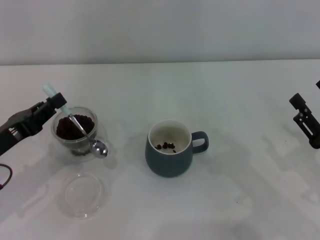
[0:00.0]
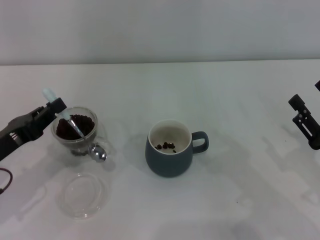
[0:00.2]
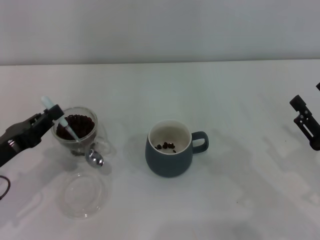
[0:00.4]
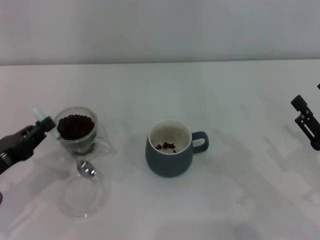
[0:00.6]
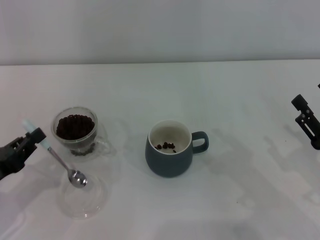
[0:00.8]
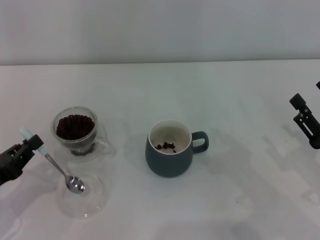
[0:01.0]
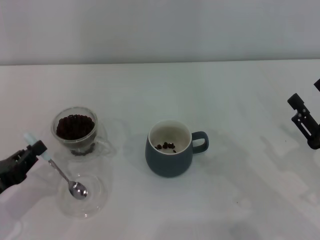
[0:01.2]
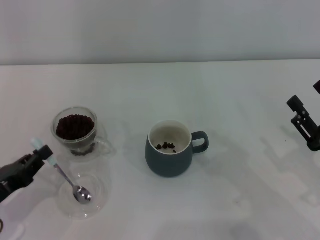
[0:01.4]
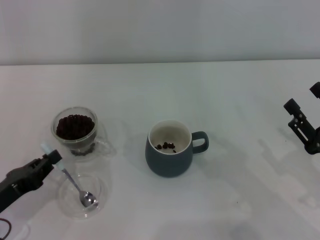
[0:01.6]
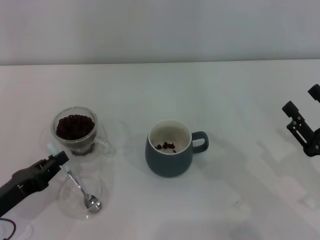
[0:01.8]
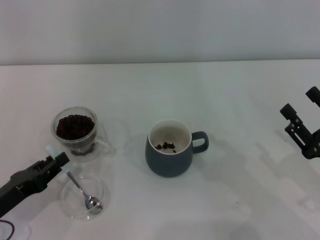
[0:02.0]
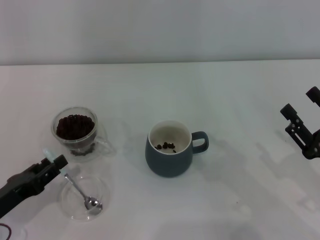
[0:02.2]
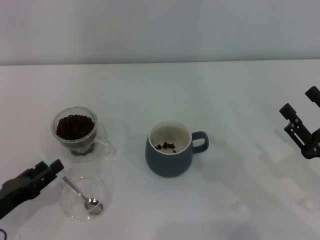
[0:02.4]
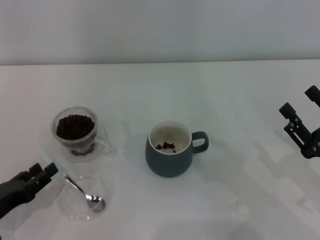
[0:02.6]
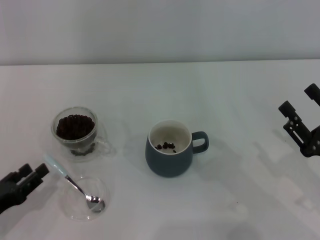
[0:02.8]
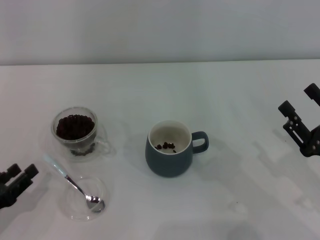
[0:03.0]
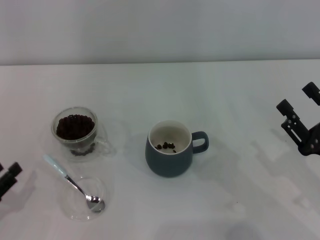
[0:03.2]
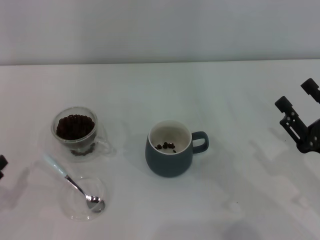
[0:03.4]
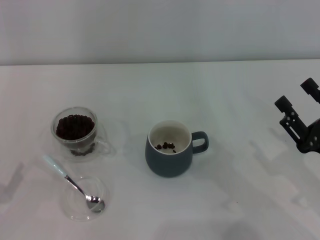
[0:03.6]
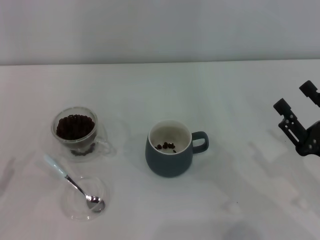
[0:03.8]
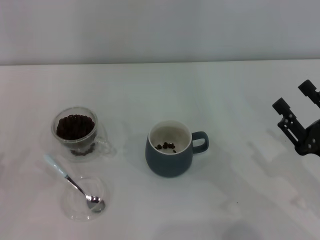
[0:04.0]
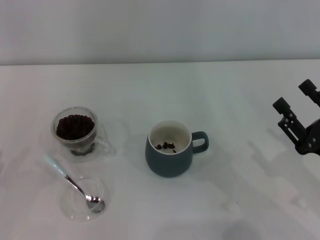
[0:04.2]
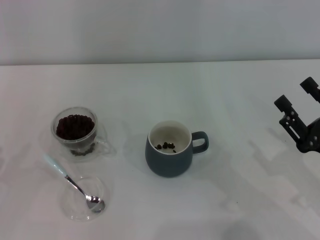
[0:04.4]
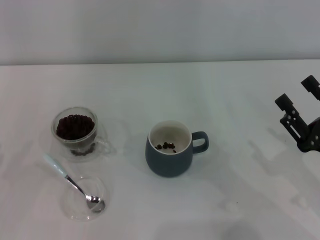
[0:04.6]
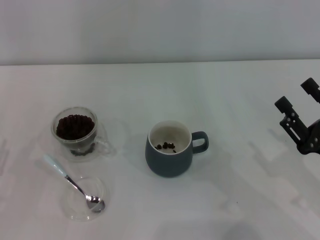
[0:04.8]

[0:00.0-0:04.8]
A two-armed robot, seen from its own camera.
Task of the whole recording: Use a blue spoon to take out the coffee beans from the glass and pour them into the gray cup.
0:00.0 to 0:01.6: The left gripper heads downward and backward, covering about 10 cm.
0:01.6 to 0:03.2: The left gripper moves about 5 cm, and opens.

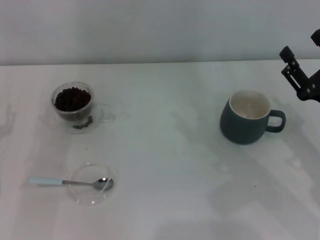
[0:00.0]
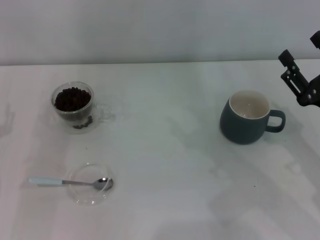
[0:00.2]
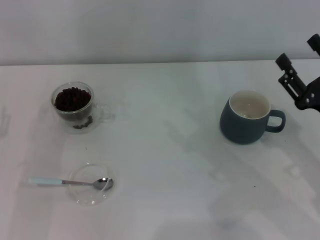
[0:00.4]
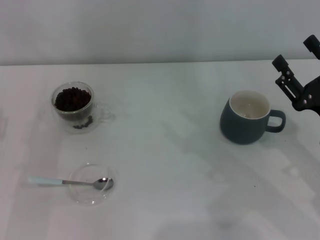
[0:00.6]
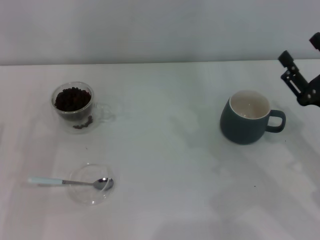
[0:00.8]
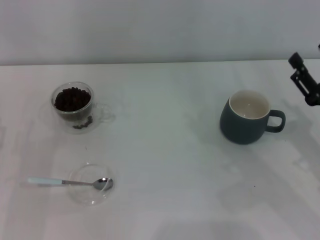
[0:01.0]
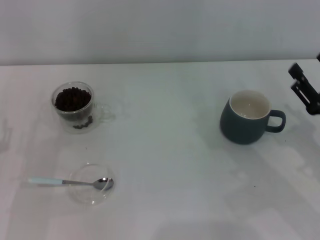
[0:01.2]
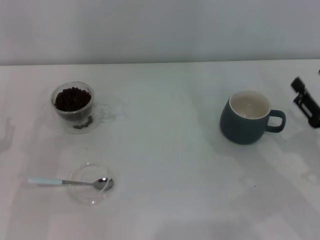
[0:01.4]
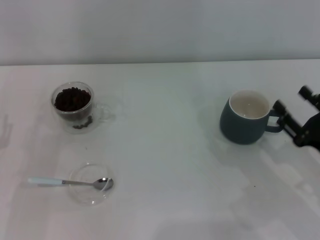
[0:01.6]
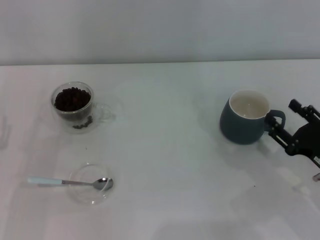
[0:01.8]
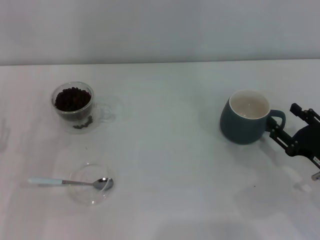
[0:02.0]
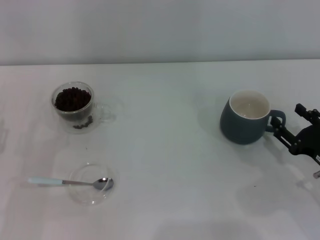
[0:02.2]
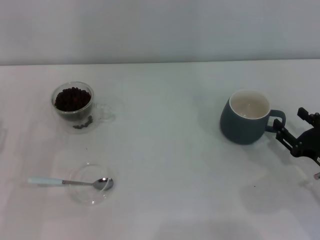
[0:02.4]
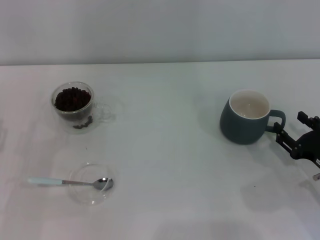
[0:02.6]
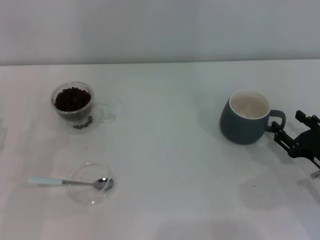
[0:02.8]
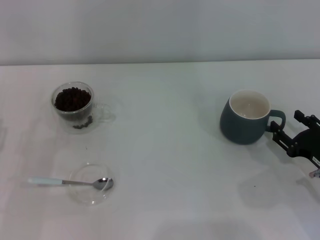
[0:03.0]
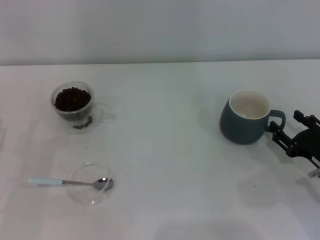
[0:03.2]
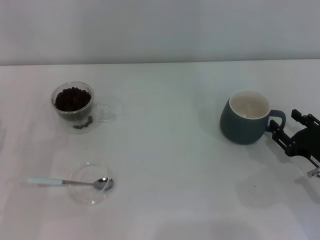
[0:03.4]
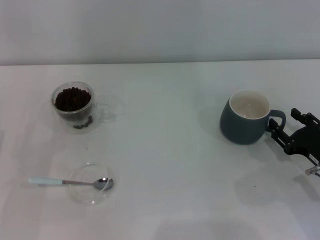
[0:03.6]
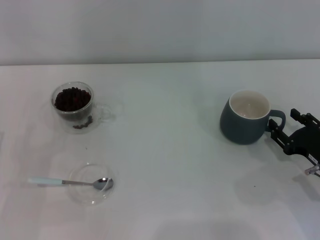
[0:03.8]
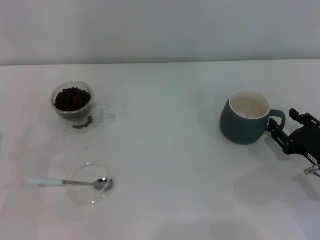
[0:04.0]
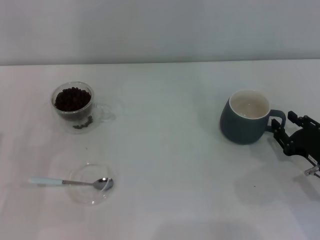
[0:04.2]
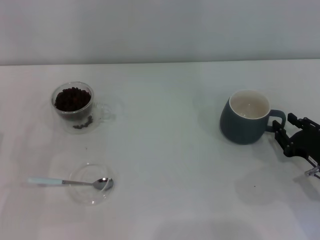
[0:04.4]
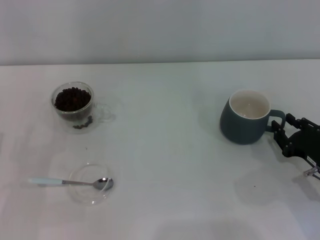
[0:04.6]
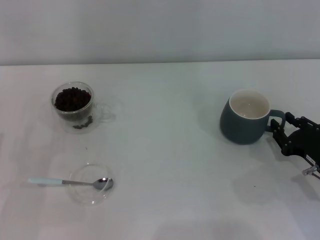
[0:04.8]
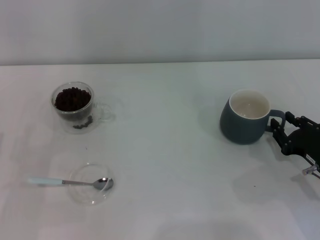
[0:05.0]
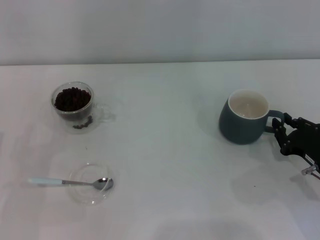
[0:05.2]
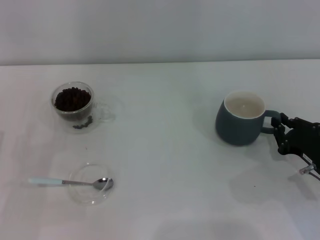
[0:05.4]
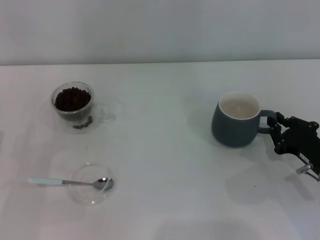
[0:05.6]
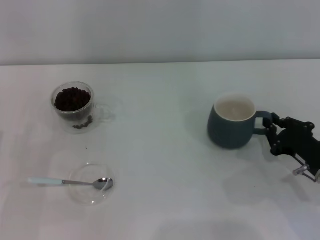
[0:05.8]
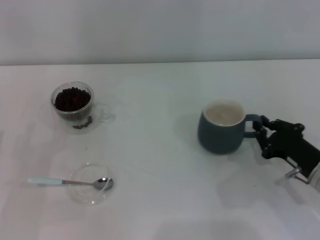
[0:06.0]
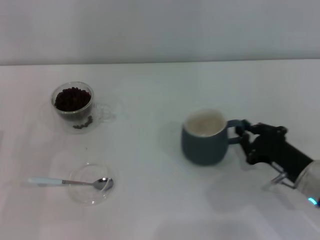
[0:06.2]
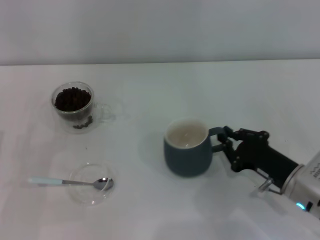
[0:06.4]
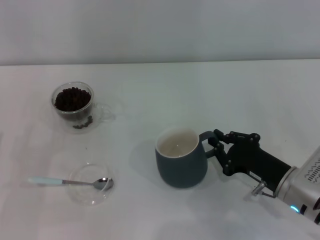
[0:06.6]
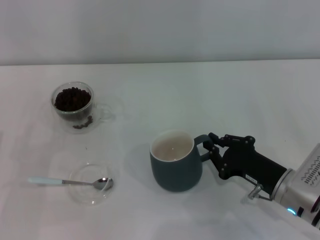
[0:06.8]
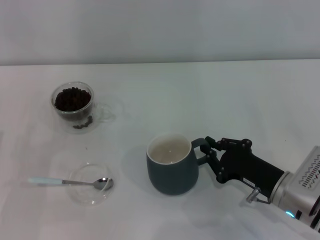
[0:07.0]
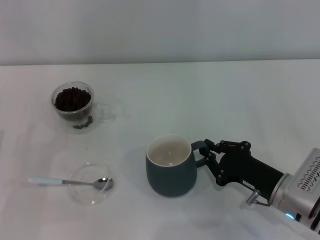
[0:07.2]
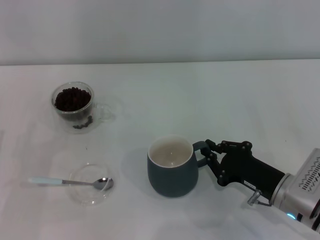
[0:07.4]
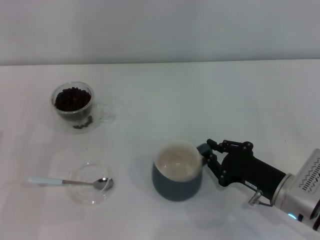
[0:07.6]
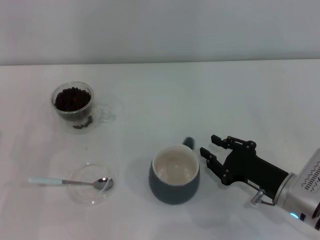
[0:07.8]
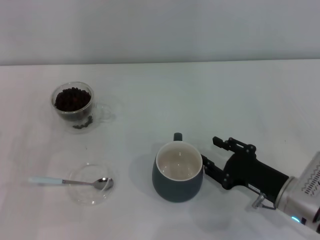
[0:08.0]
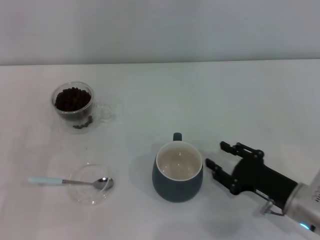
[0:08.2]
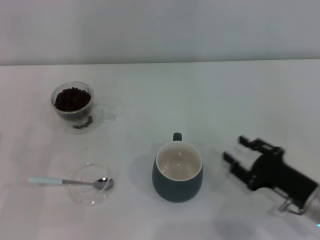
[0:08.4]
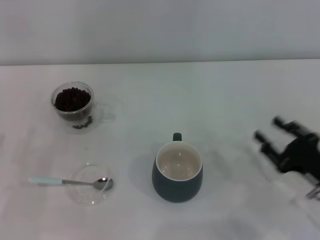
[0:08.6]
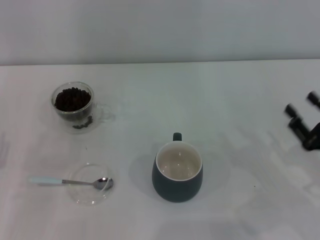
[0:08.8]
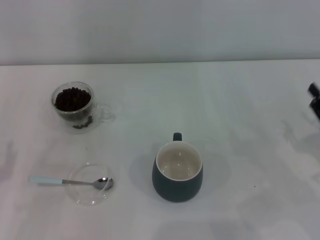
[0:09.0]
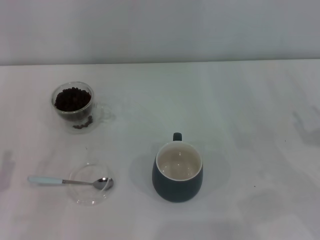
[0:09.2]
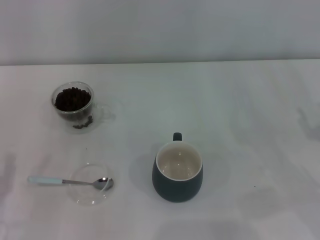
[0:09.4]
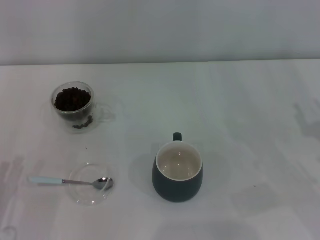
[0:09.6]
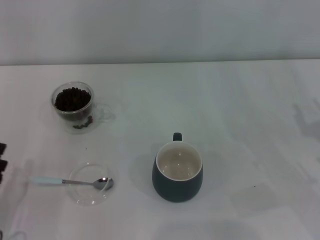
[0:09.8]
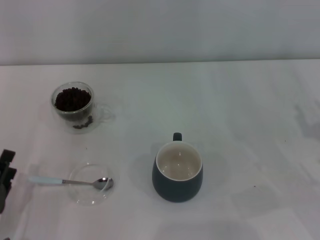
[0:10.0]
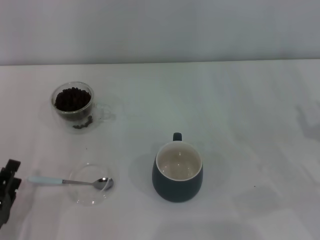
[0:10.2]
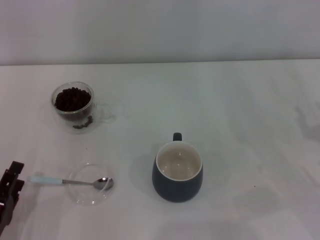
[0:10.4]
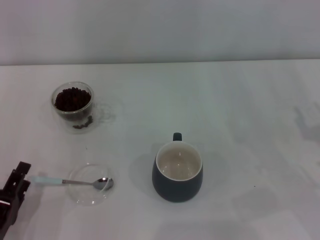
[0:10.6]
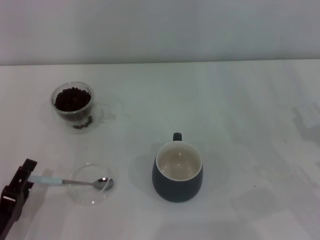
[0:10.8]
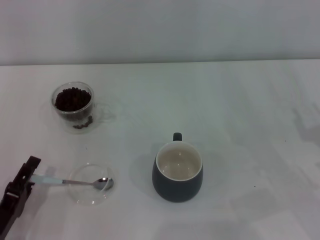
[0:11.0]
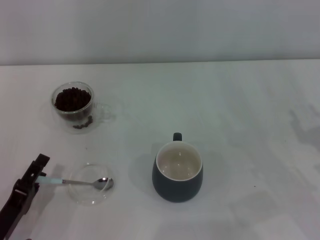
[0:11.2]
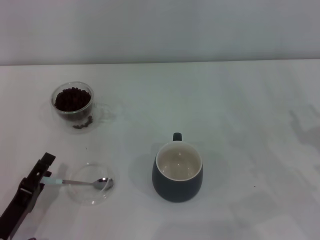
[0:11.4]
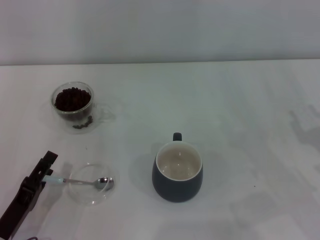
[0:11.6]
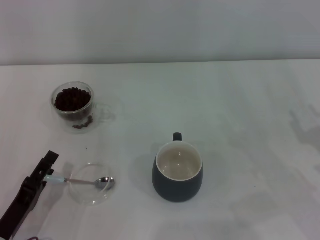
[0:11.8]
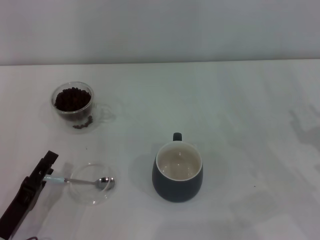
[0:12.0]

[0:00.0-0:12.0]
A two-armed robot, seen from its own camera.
Task of the whole recording: Use a blue spoon to take out the coffee beans from the glass and pour them into the gray cup.
Step, 0:00.0 to 0:08.4: Move the cup to the center of view with the left gripper.
0:00.0 to 0:01.6: The right gripper ends up approximately 5 cm from where it was.
0:01.6 to 0:03.0: The grippers move only a little.
0:03.0 to 0:04.4: Both grippers stay about where they are.
0:04.4 to 0:06.0: The right gripper closes up.
0:06.0 to 0:07.6: The right gripper moves to the left, about 5 cm.
0:07.6 to 0:09.0: The left gripper goes some 5 cm backward. The right gripper goes some 10 cm to the right, and opens its fingers.
0:09.0 to 0:10.4: The left gripper goes some 5 cm downward.
0:10.4 to 0:12.0: There are only small adjustments of the grippers.

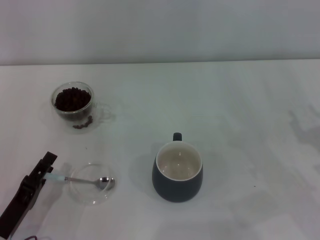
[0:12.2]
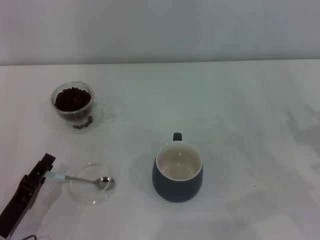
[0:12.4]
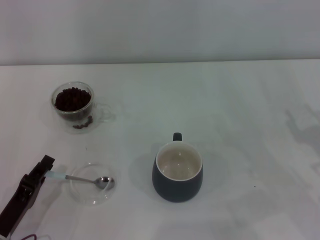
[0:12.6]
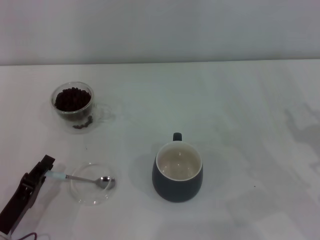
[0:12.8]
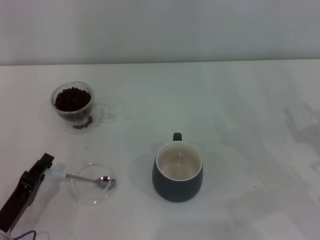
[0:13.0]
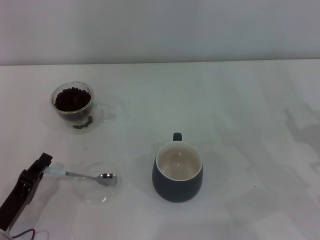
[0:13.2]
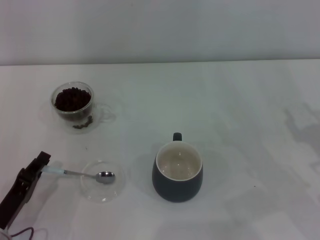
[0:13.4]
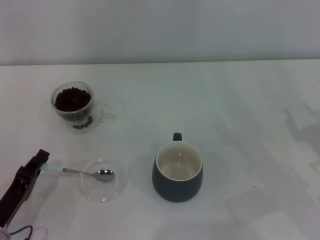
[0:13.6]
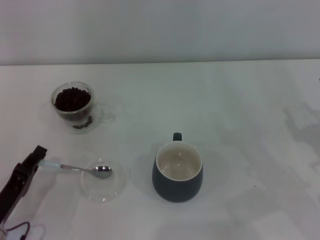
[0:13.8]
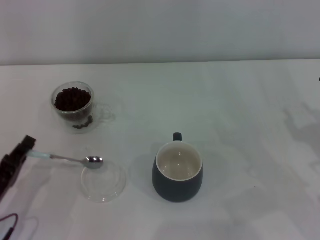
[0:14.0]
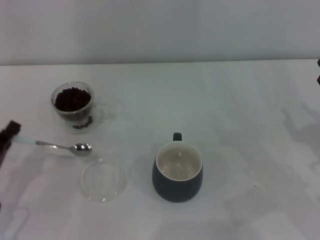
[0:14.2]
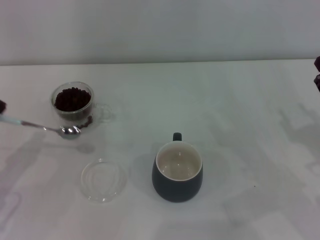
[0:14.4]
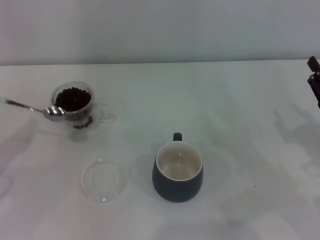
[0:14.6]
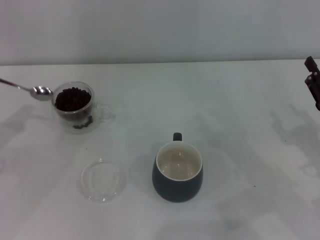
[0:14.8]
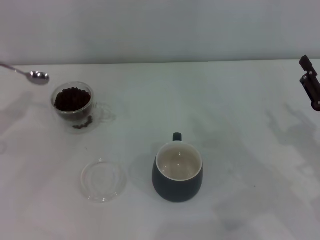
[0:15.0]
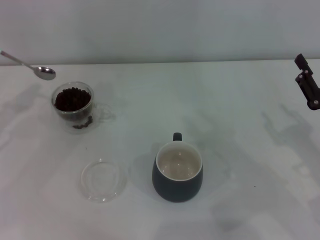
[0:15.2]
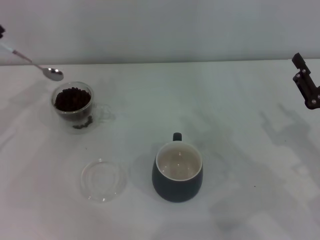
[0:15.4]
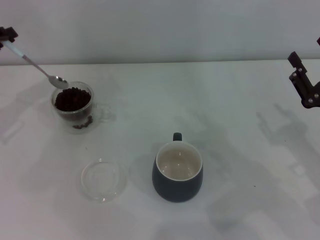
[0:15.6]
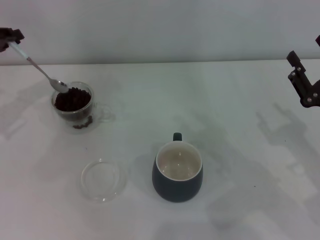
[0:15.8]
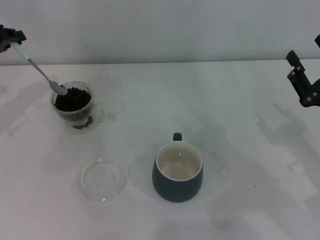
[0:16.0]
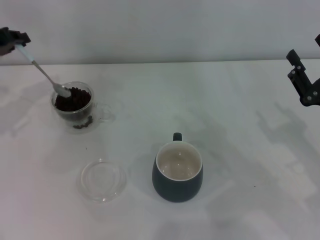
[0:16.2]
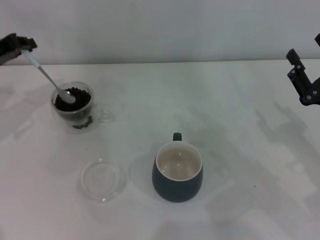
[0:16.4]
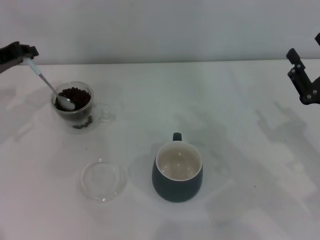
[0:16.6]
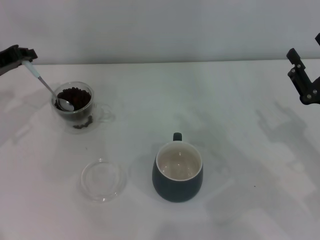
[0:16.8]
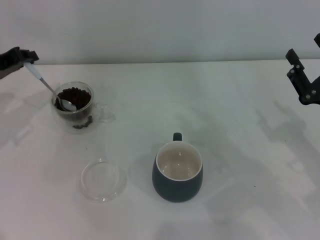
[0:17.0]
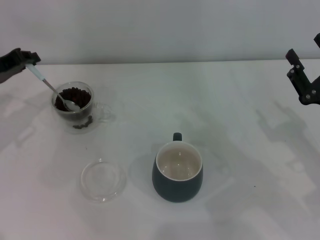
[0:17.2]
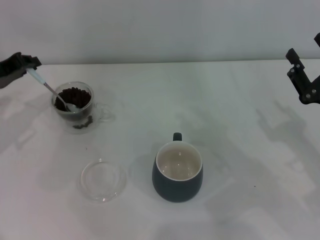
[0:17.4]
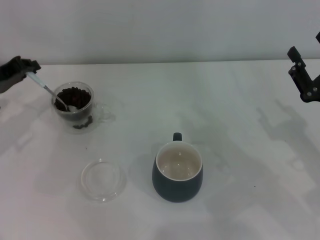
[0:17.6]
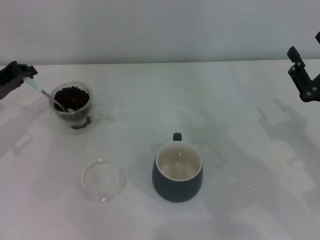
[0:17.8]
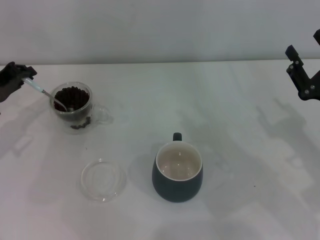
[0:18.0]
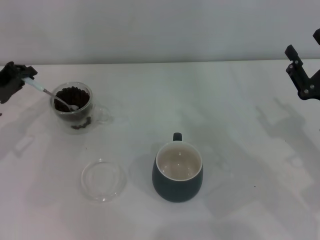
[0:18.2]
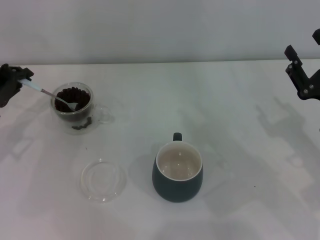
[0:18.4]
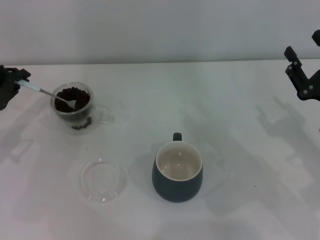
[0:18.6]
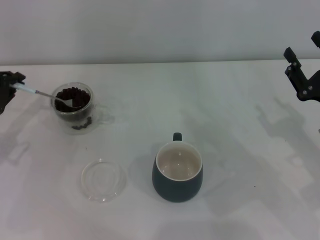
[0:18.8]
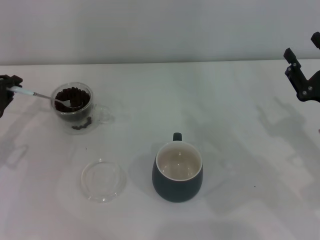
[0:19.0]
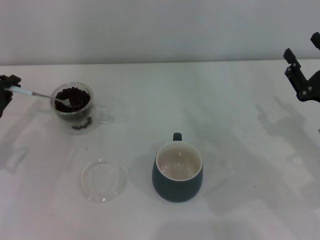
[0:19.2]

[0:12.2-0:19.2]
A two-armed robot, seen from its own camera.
Task of the whole recording: Use a blue spoon to take out the coffee beans from the glass and pour them into the gray cup.
0:12.2 to 0:13.6: The left gripper closes up.
0:13.6 to 0:15.0: The left gripper travels upward, forward and to the left by approximately 20 cm.
0:15.0 to 0:16.4: The left gripper is displaced forward and to the right by approximately 10 cm.
0:16.4 to 0:17.8: The left gripper moves approximately 5 cm.
0:17.8 to 0:19.2: The left gripper ends up roughly 5 cm from where it was.
